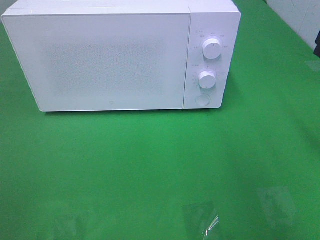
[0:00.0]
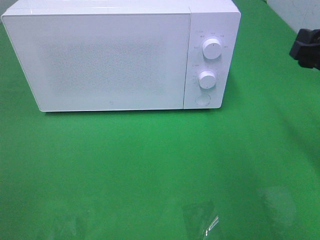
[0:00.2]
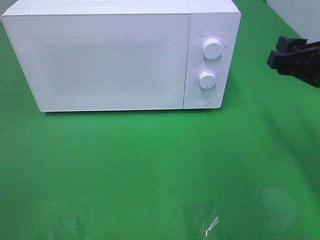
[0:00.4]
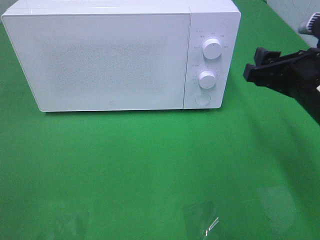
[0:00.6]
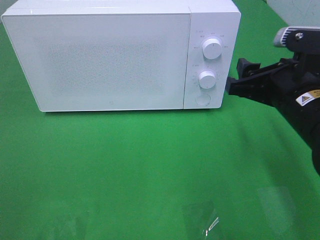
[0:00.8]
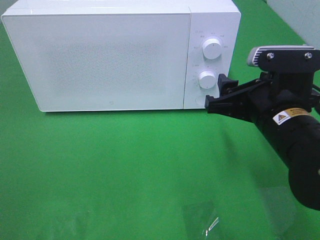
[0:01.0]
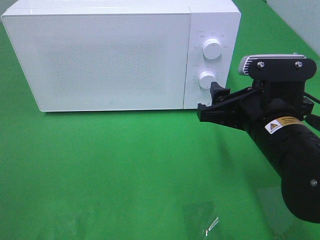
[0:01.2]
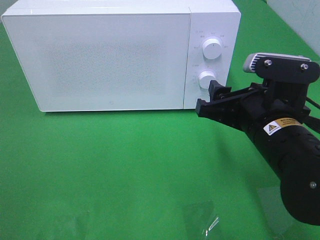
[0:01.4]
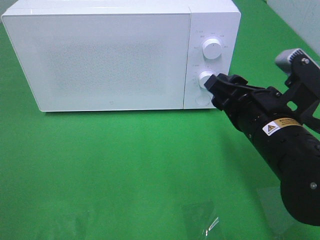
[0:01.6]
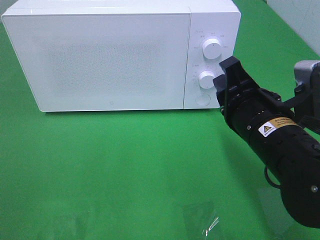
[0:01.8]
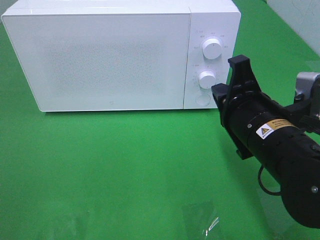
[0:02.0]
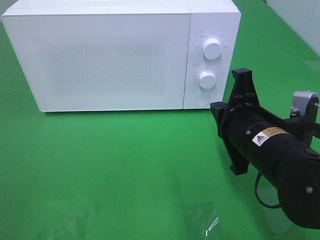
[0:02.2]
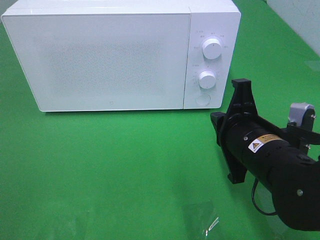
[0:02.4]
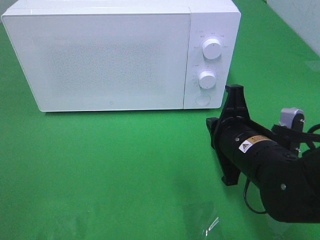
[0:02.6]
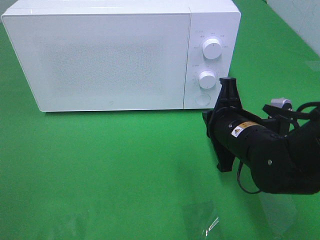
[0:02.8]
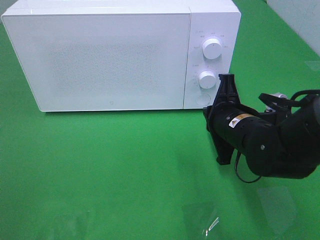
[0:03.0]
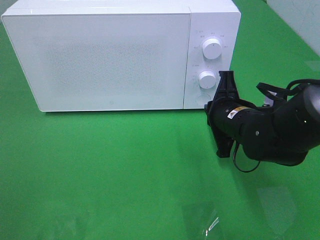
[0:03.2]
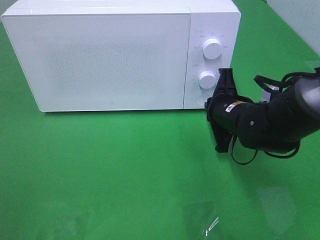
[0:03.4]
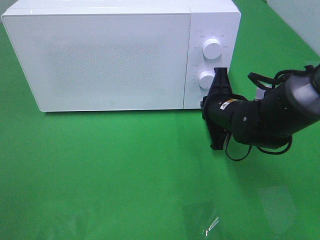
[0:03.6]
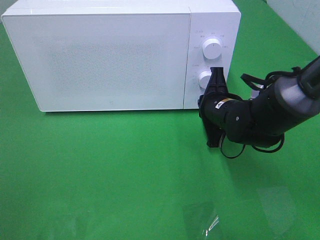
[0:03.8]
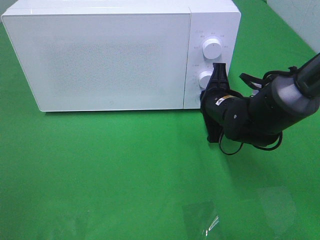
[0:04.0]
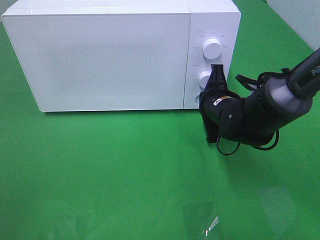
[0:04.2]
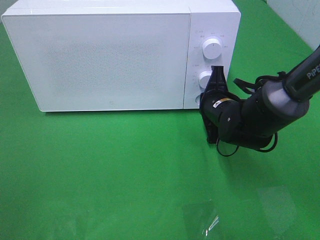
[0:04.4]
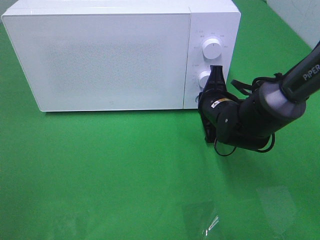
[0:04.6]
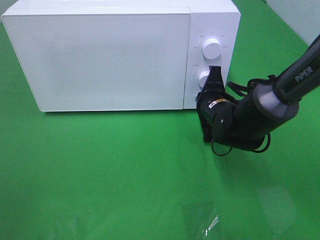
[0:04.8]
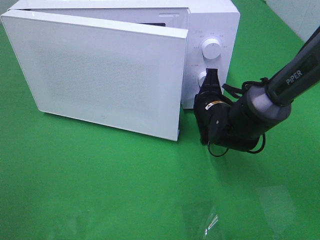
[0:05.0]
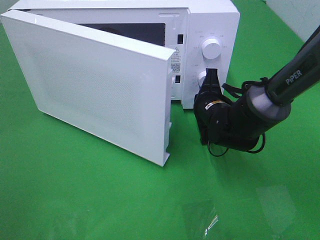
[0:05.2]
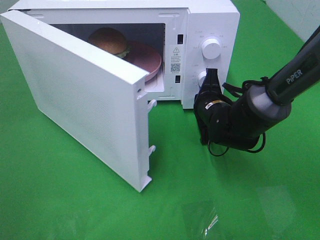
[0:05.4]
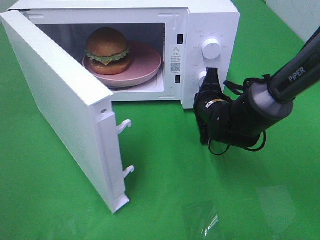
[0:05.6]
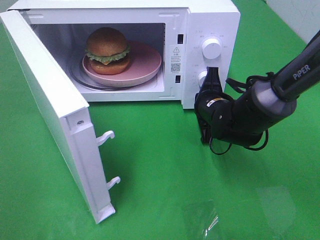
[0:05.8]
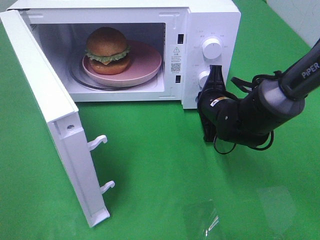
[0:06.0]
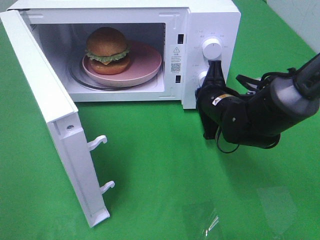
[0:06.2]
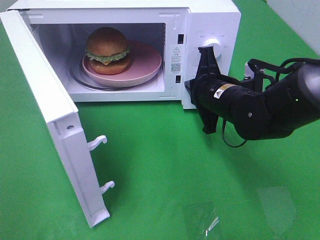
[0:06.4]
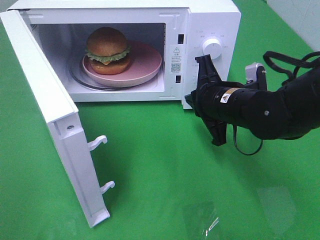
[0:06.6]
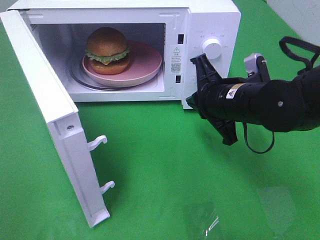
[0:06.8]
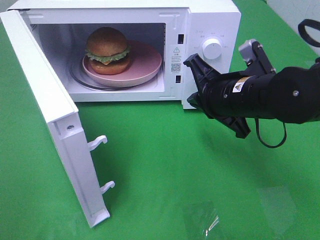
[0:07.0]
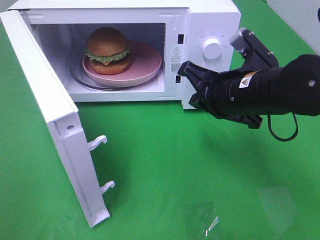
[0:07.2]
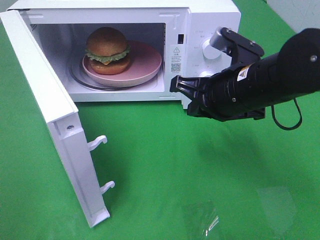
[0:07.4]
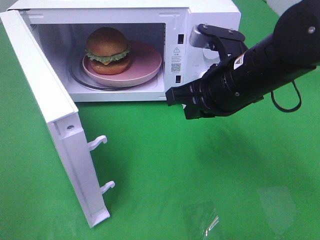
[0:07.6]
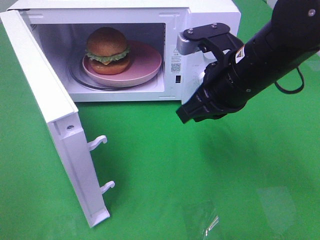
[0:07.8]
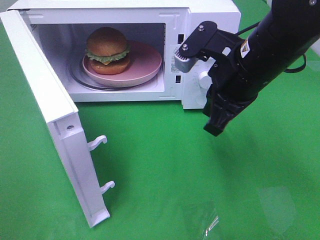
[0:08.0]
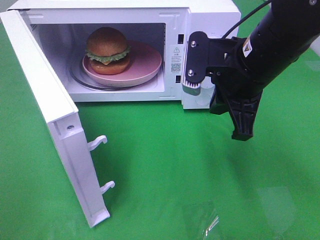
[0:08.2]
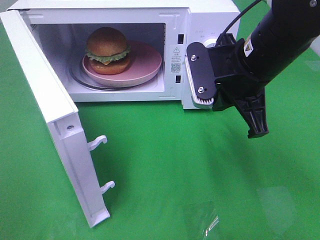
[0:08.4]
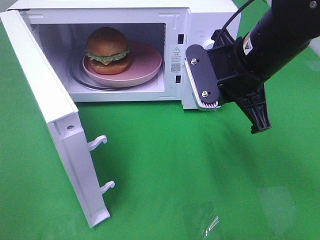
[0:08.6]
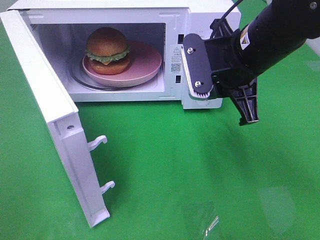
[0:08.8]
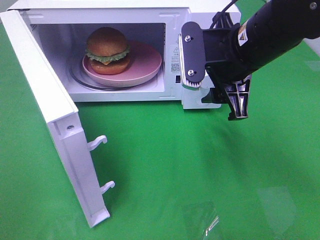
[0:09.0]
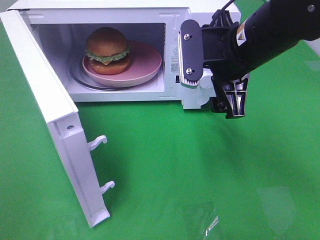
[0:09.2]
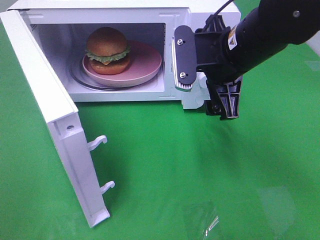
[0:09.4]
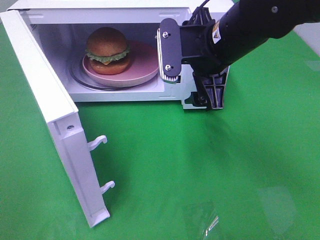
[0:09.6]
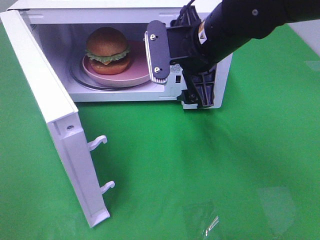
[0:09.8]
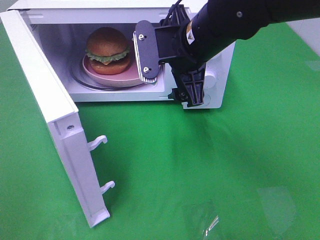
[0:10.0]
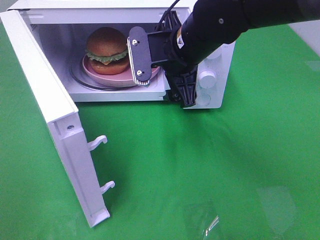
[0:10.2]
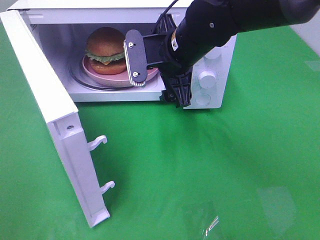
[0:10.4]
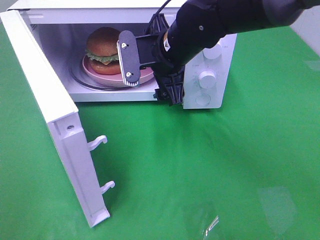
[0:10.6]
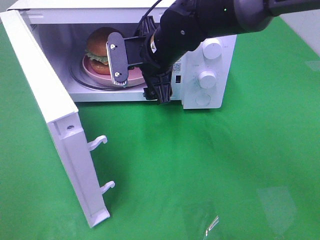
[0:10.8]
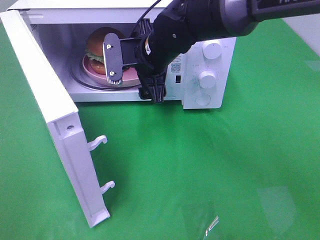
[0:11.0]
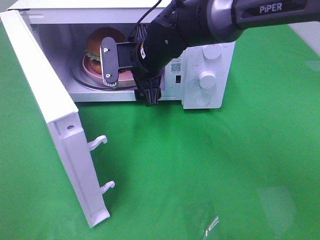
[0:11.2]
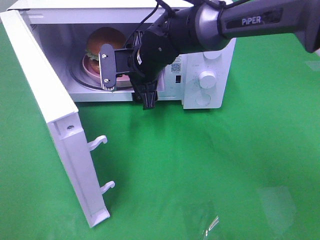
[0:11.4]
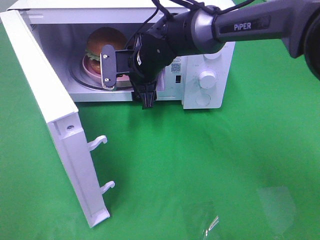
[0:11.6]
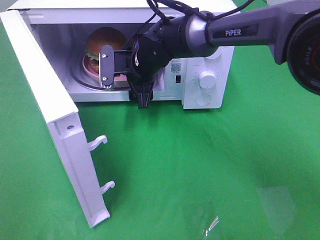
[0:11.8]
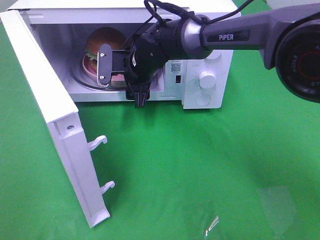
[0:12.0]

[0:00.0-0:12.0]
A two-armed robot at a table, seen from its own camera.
Task of the whole recording: Heat the burger.
Step, 0:00.0 to 0:06.2: Right hand: press the switch.
0:00.0 to 0:01.6: The right gripper goes some 15 cm to the left and downward.
0:01.6 to 0:03.0: The right gripper shifts some 10 cm forward and downward, and closes.
0:03.0 to 0:04.4: The right gripper is displaced forward by approximately 5 cm.
0:06.0 to 0:07.6: The right gripper travels upward and backward by roughly 15 cm.
0:07.6 to 0:09.0: The right gripper opens.
0:09.0 to 0:10.4: The right gripper goes some 10 cm to the left and forward.
0:10.4 to 0:12.0: The right gripper goes roughly 15 cm forward, downward and to the left.

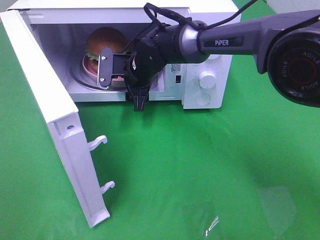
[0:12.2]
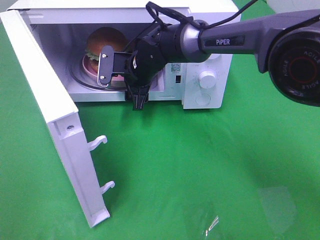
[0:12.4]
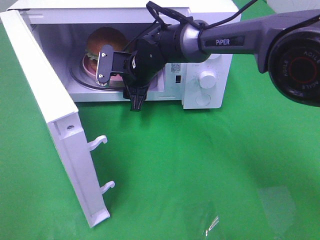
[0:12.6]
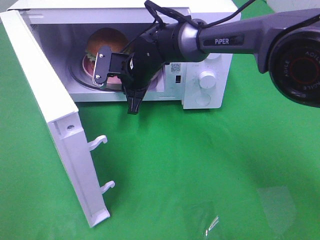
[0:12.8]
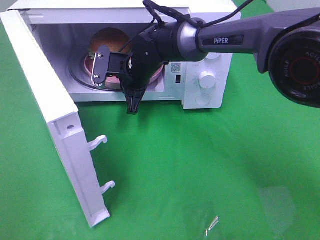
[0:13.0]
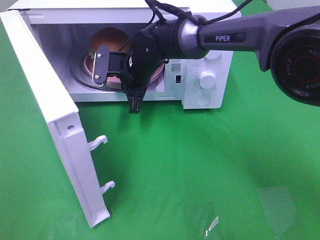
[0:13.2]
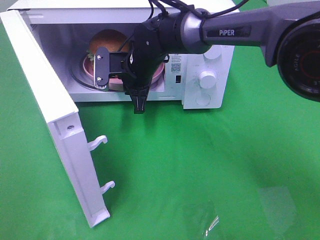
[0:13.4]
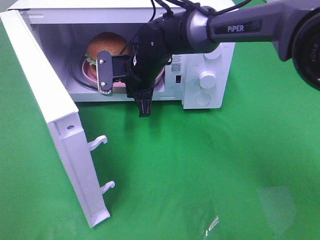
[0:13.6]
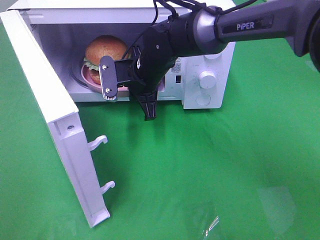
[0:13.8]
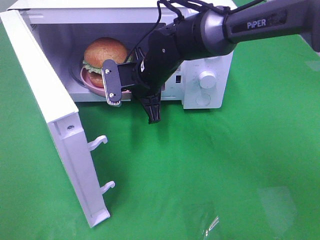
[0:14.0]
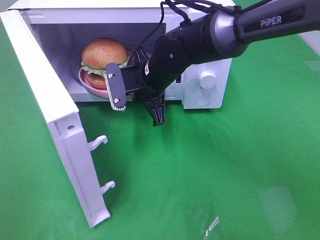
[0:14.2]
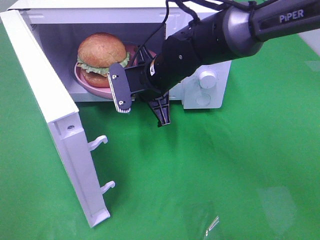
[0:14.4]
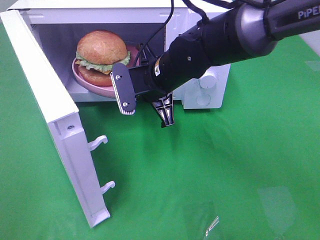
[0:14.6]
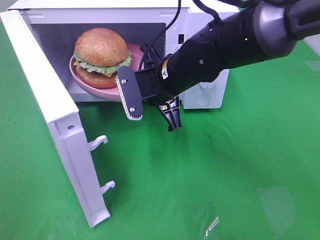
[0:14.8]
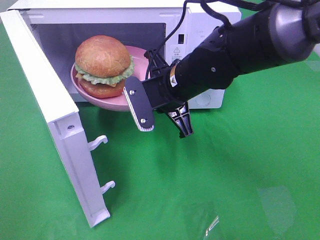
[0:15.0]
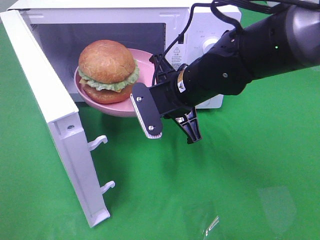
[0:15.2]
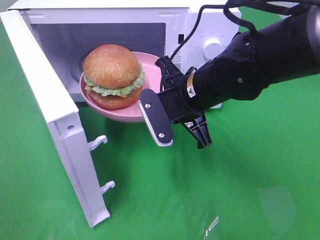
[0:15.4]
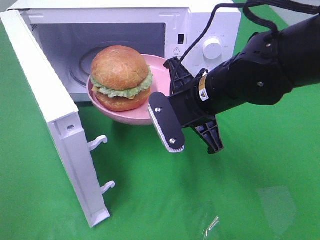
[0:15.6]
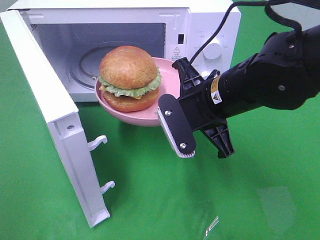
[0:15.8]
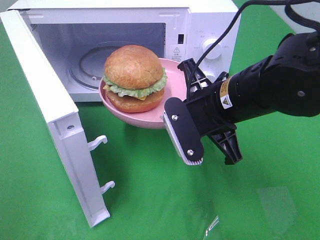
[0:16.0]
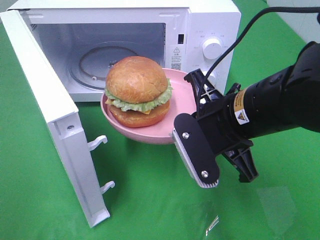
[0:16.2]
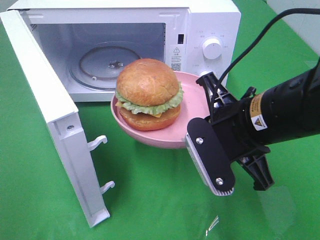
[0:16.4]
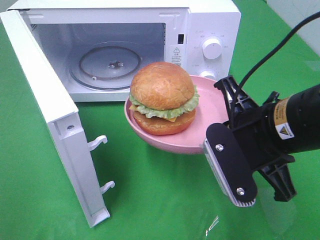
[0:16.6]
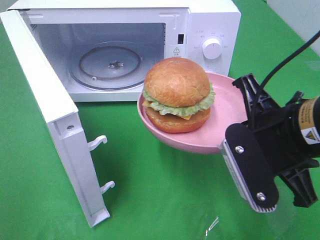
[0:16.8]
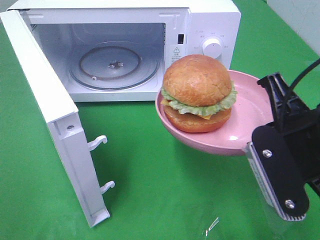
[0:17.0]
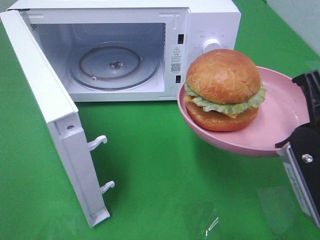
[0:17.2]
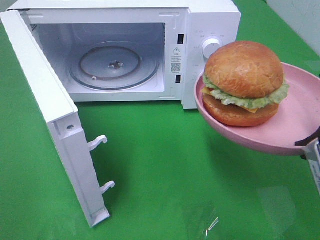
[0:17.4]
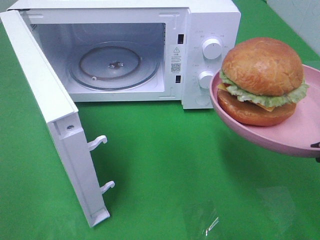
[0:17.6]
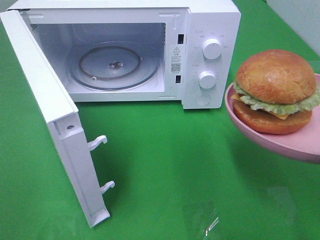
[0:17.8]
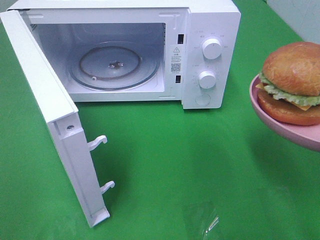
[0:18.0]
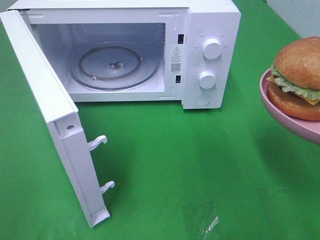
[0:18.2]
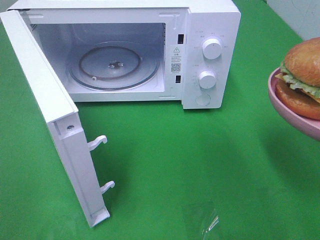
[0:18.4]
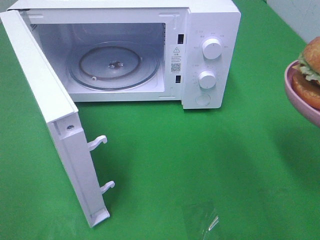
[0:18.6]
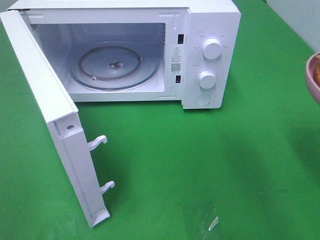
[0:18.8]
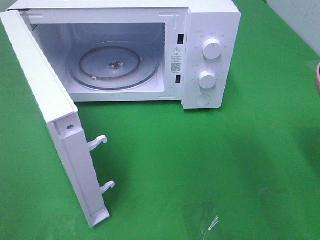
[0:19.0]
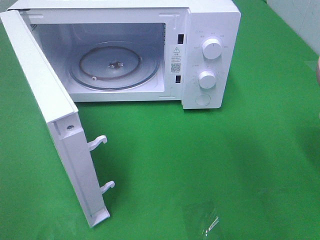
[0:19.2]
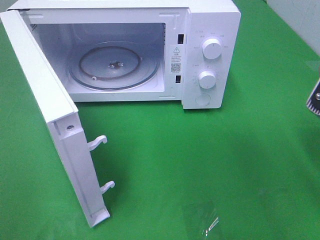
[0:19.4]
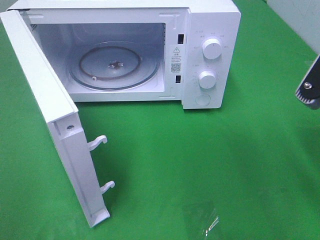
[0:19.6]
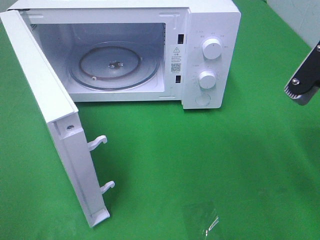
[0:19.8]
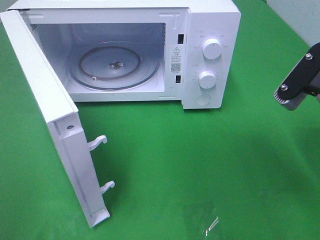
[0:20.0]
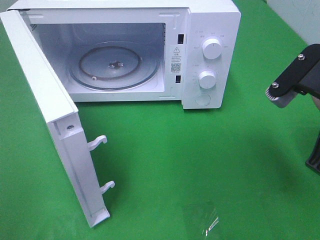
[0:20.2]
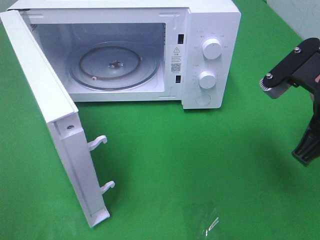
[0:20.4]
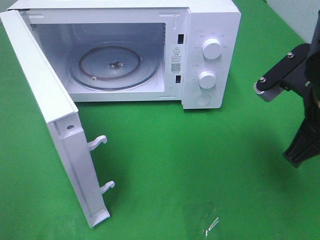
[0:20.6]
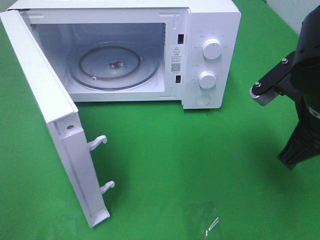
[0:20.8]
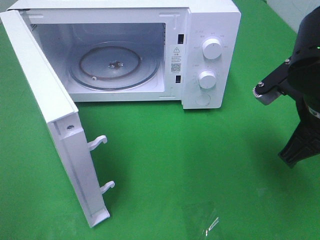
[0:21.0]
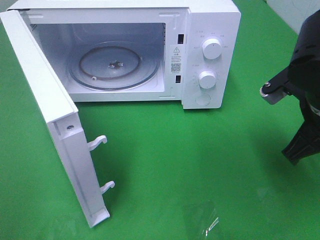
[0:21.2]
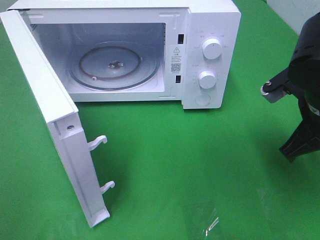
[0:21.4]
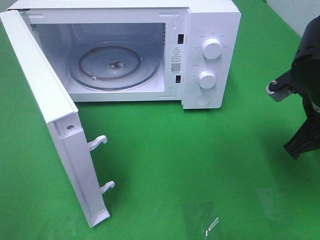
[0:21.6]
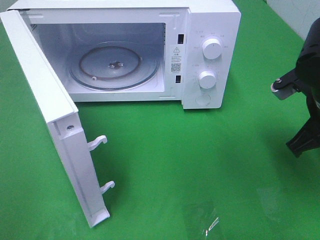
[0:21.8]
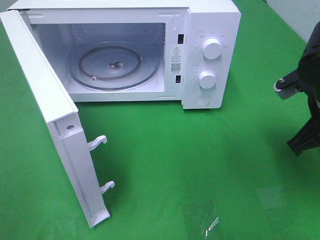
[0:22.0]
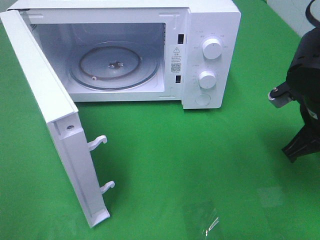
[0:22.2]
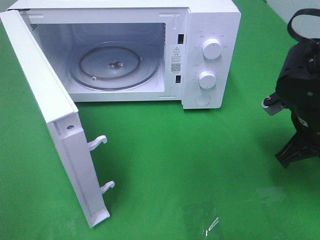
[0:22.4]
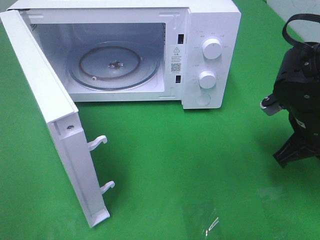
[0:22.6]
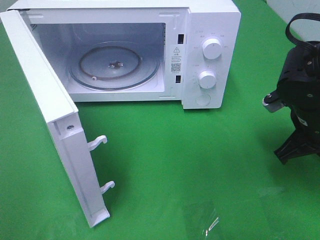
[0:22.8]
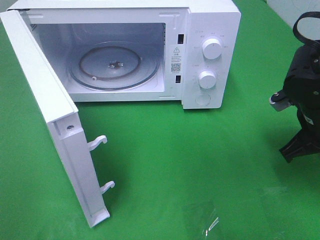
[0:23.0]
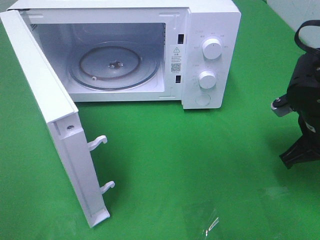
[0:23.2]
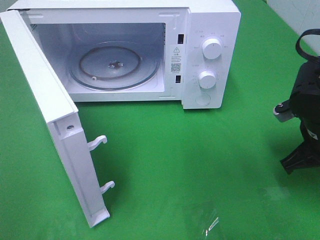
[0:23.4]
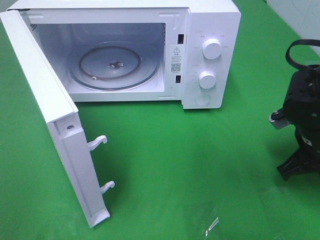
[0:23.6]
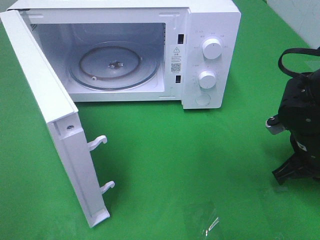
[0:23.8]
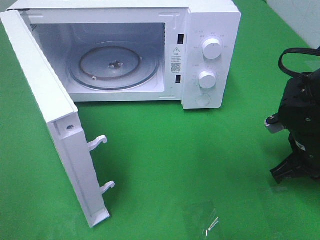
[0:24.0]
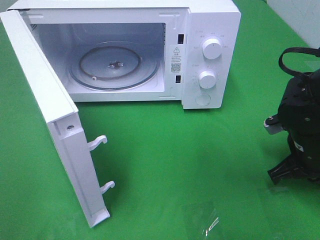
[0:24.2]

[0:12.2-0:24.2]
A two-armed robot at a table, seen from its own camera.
Task of the whole recording: Heat the burger.
0:12.2 to 0:13.8: The right gripper closes up.
0:13.8 to 0:15.2: The right gripper is displaced backward and to the right by roughly 10 cm.
0:15.2 to 0:16.6: The right gripper goes some 15 cm backward and to the right.
0:16.6 to 0:18.2: The right gripper shifts some 15 cm to the right and backward.
0:18.2 to 0:19.8: The right gripper heads forward, covering about 5 cm.
0:19.8 to 0:21.2: The right gripper shifts approximately 5 cm downward.
0:21.2 to 0:22.6: The right gripper moves downward, approximately 5 cm.
0:22.6 to 0:24.2: There are only small adjustments of the grippers.
